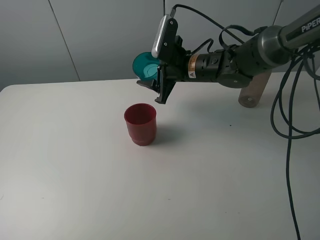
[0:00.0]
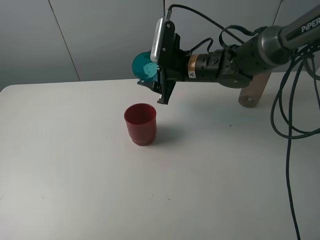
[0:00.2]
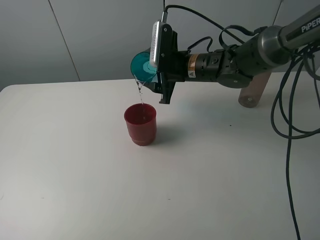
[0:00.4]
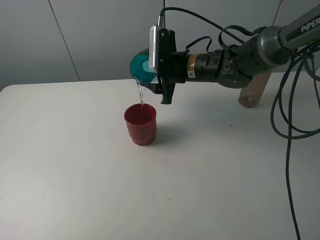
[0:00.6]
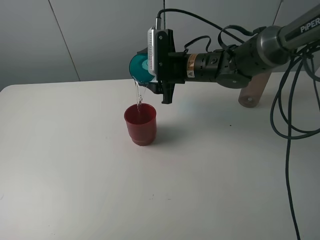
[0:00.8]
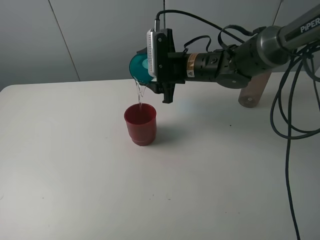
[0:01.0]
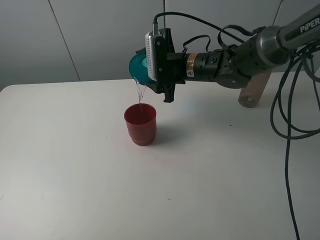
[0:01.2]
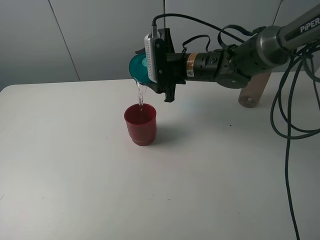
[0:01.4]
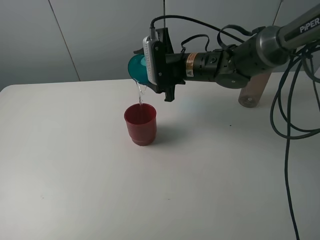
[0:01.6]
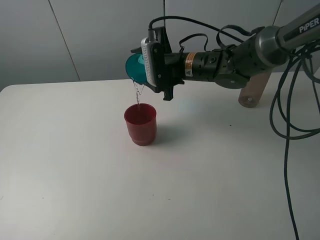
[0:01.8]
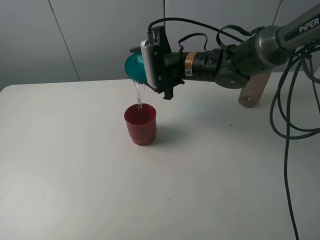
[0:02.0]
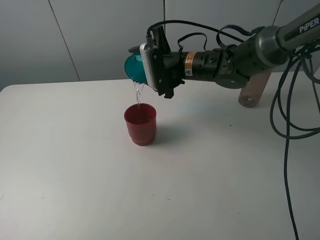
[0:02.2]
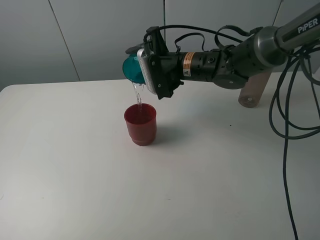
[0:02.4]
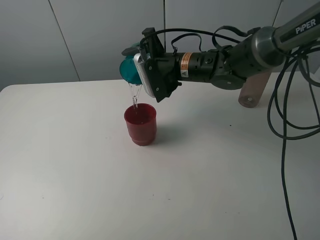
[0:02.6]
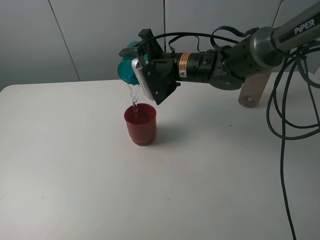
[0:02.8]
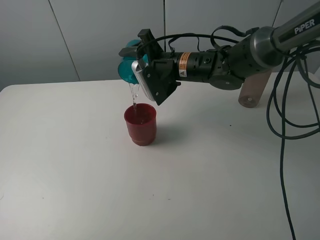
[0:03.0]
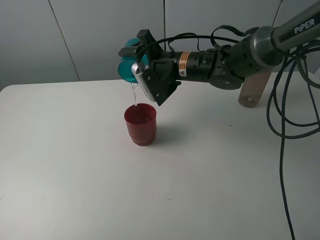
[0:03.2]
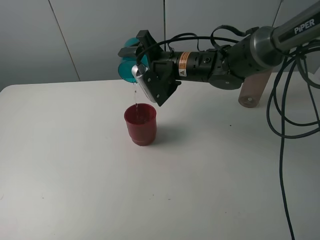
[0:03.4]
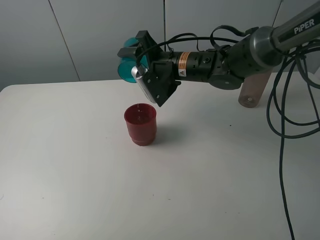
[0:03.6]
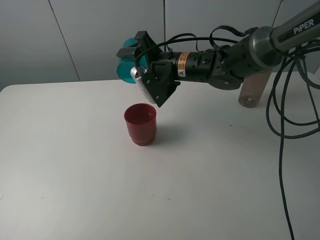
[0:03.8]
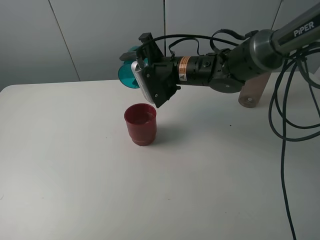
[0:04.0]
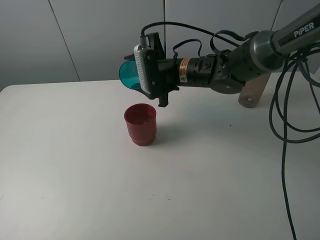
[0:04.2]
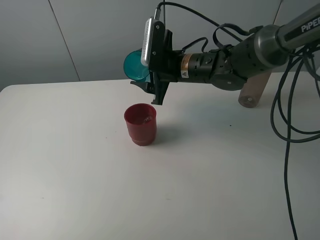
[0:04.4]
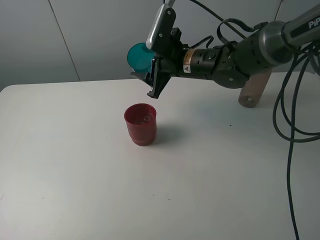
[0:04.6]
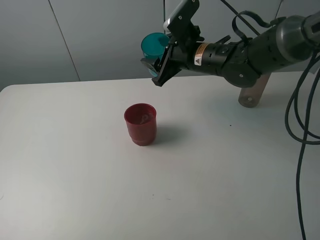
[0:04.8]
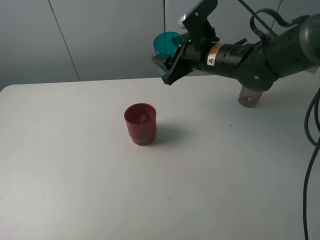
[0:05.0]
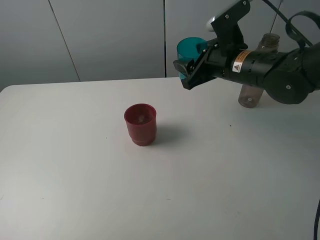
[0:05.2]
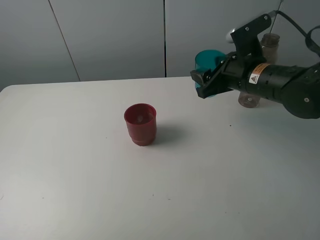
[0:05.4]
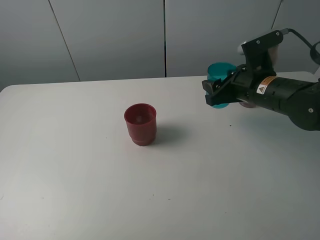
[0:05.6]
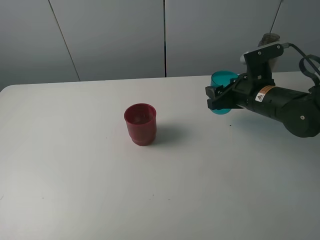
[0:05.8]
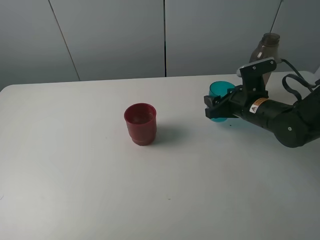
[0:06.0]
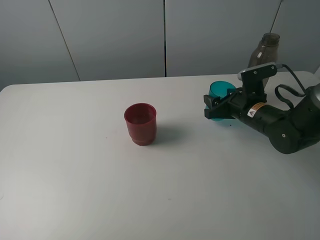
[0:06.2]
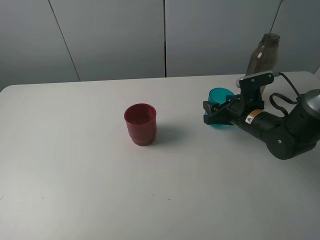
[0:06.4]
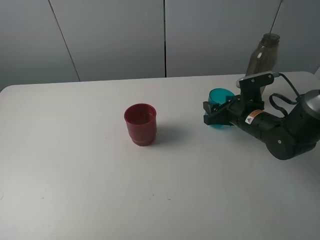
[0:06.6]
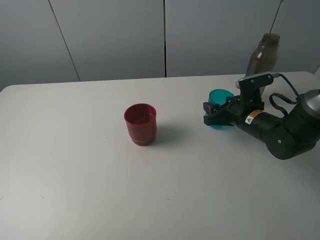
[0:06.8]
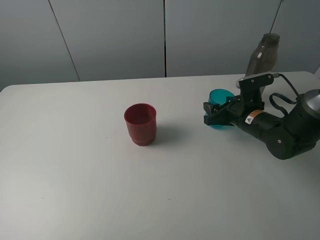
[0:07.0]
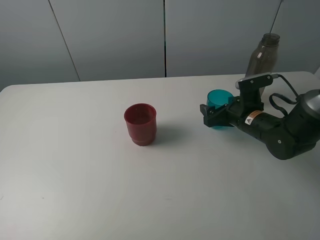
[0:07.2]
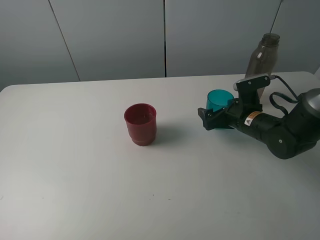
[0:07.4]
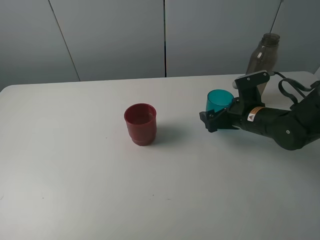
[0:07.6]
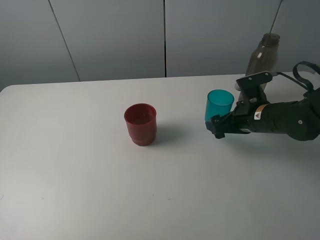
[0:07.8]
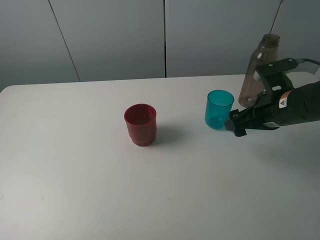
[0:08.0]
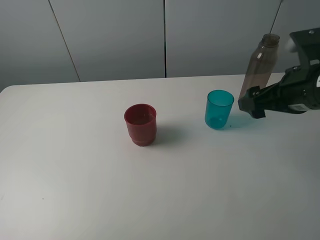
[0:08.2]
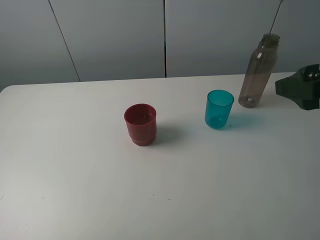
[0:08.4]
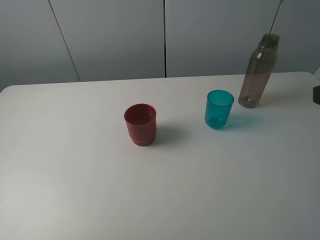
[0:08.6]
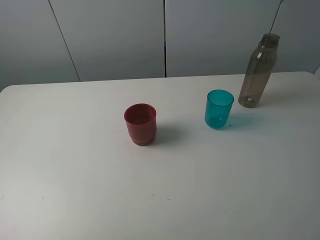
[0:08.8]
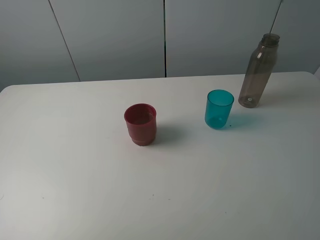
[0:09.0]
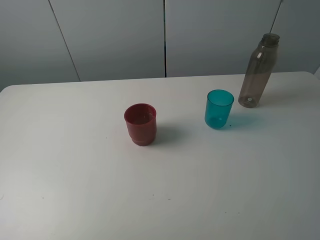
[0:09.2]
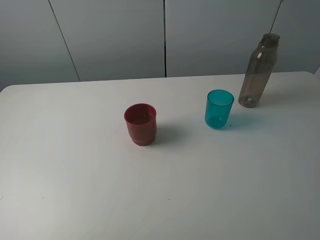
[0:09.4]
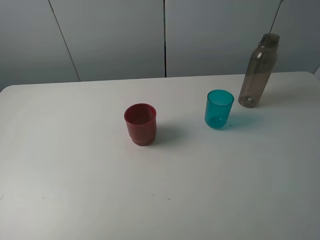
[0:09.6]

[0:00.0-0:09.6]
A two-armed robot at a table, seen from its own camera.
Task of the whole recording: pick up the bottle and pour water into the cup, then pick up the cup containing water and pour it into another cup.
Step, 0:00.0 to 0:03.6: Pour water from blue cup to red cup with the right gripper.
Step, 0:03.8 to 0:07.4: Place the blue cup with the right gripper.
0:04.8 to 0:06.4: The right gripper moves to the right, downward and backward, approximately 20 cm.
0:06.4 to 0:08.0: The right gripper moves upward and backward, about 10 cm, and opens up.
0:08.0 to 0:09.6: The right gripper is displaced backward and upward by about 25 cm.
